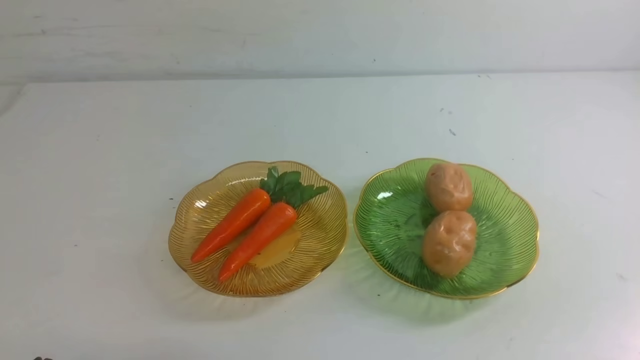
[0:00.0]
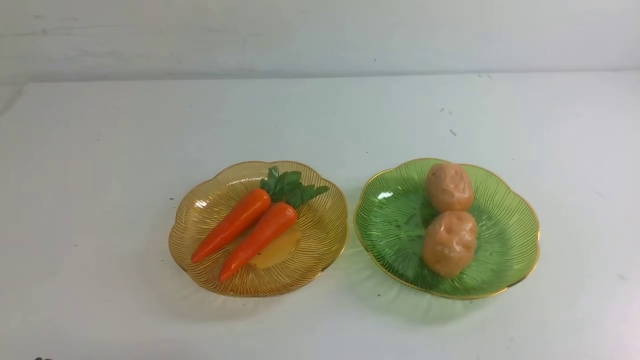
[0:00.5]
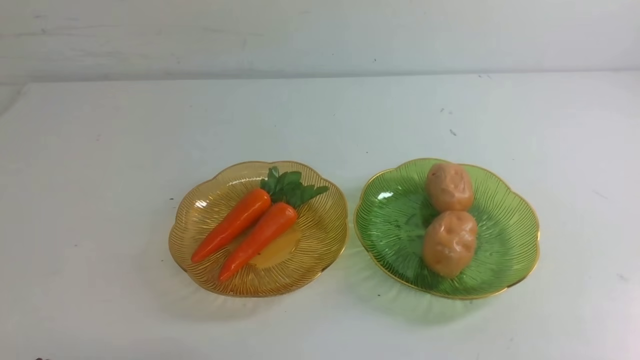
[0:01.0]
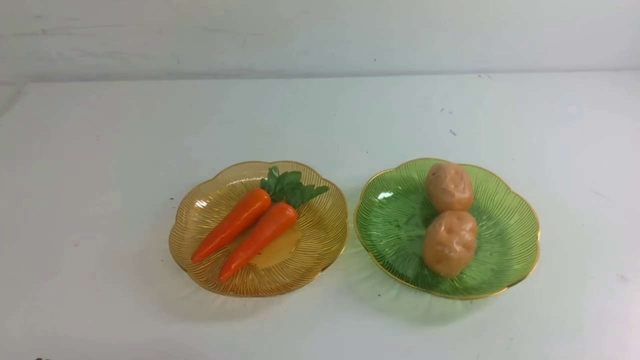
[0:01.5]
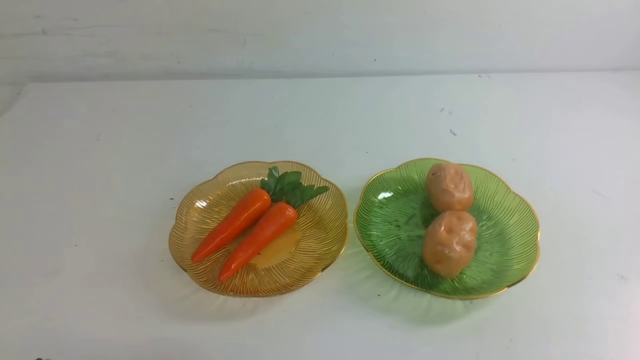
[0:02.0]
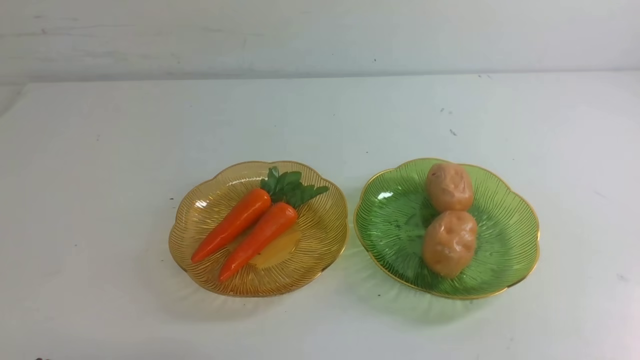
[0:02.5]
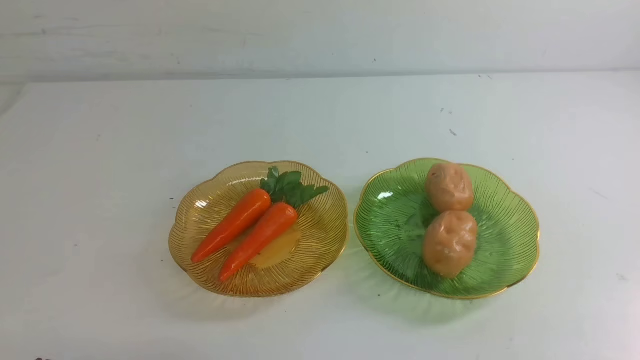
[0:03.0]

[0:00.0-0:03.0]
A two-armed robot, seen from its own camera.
0:01.5 to 0:03.0: Both grippers stay about where they are.
